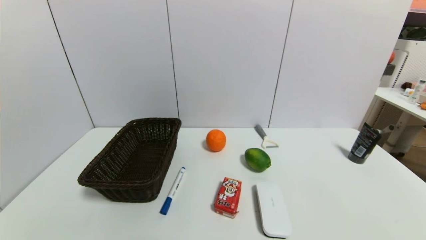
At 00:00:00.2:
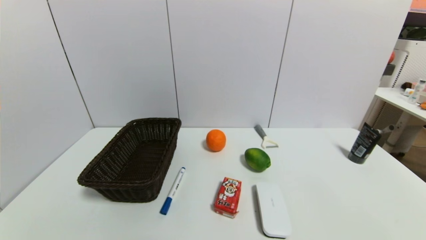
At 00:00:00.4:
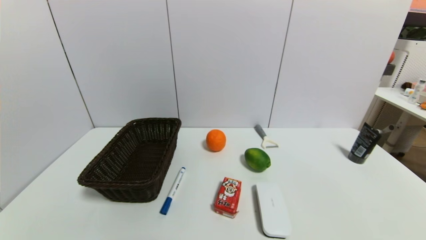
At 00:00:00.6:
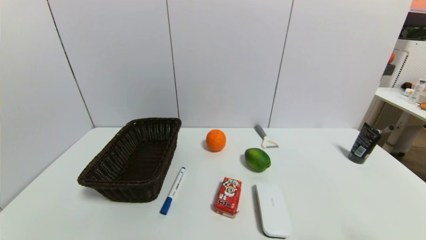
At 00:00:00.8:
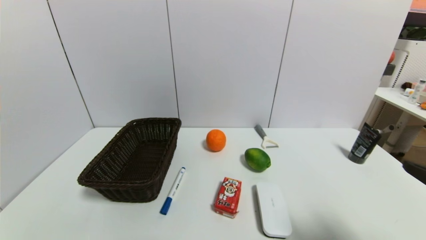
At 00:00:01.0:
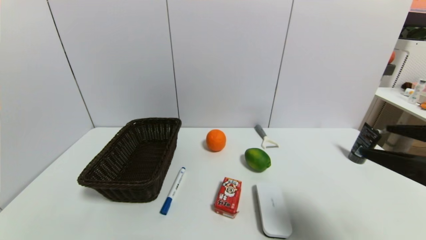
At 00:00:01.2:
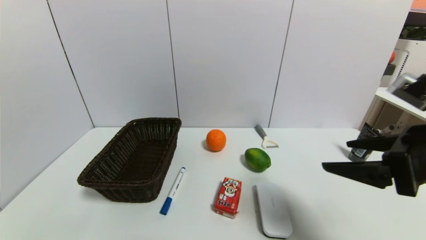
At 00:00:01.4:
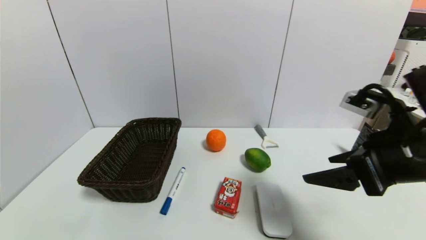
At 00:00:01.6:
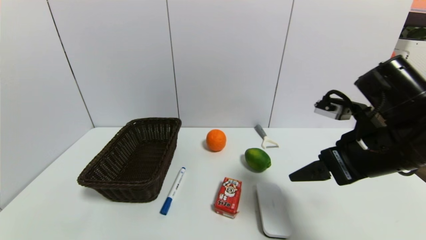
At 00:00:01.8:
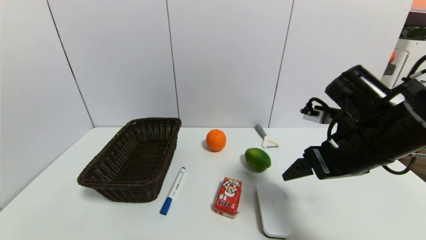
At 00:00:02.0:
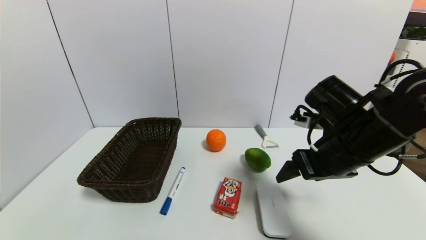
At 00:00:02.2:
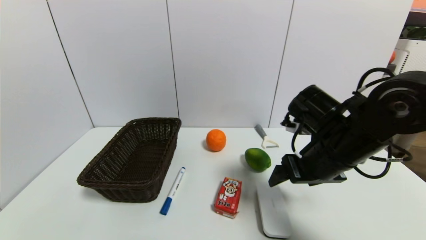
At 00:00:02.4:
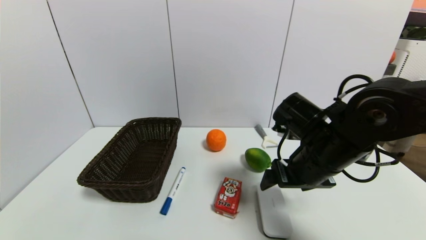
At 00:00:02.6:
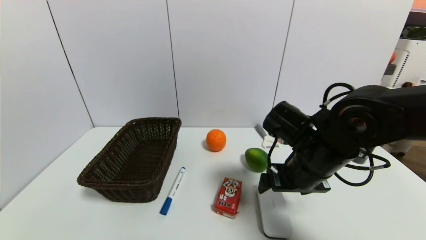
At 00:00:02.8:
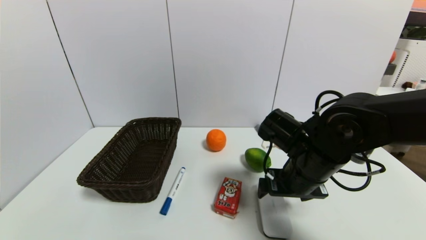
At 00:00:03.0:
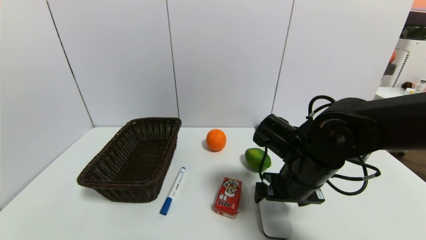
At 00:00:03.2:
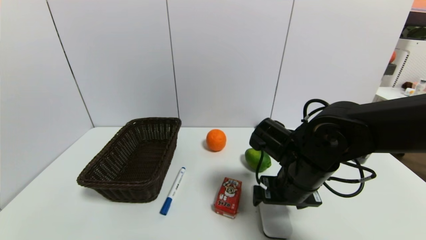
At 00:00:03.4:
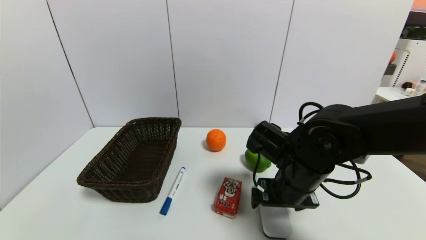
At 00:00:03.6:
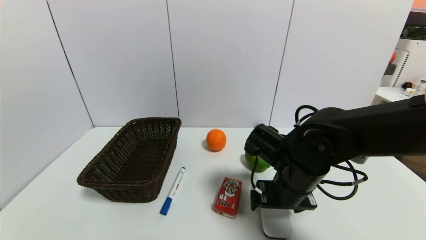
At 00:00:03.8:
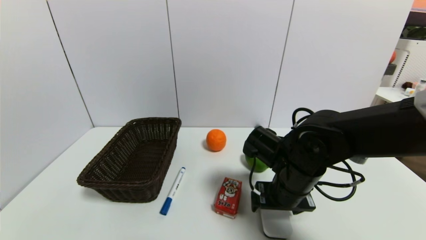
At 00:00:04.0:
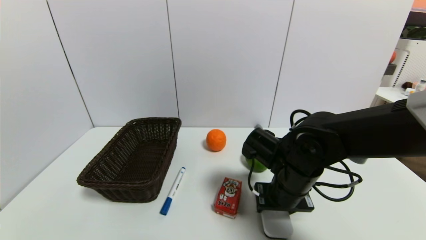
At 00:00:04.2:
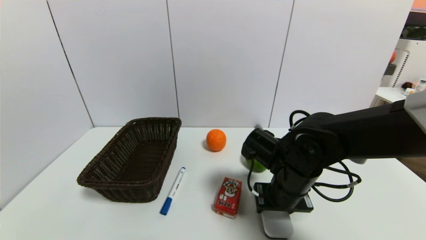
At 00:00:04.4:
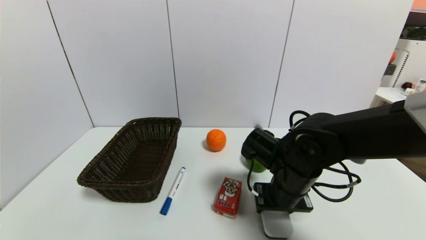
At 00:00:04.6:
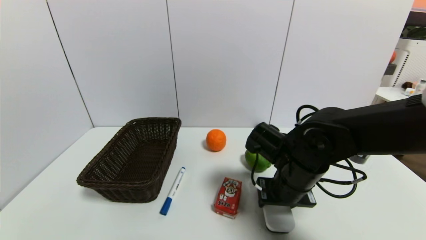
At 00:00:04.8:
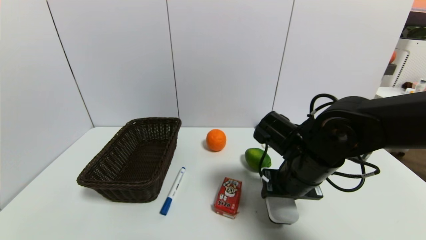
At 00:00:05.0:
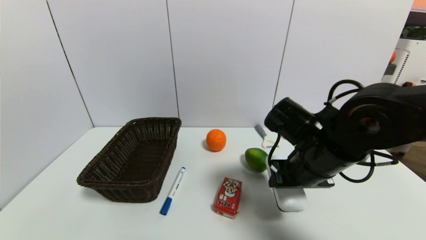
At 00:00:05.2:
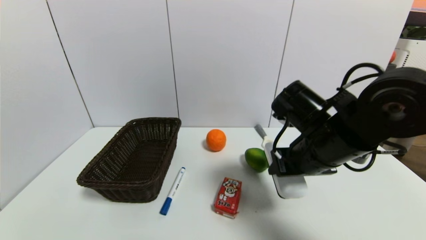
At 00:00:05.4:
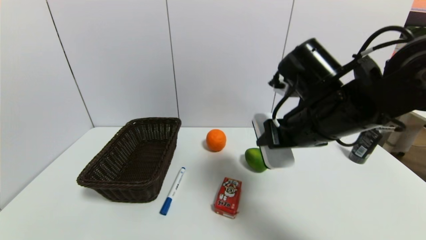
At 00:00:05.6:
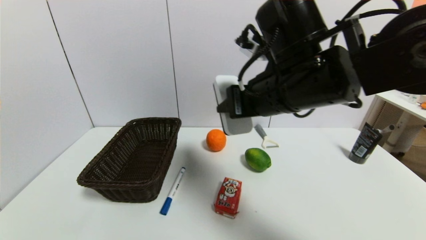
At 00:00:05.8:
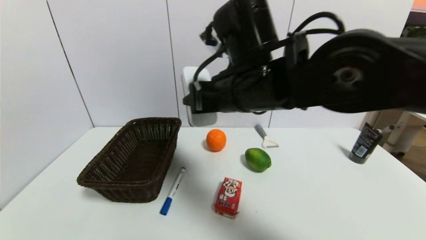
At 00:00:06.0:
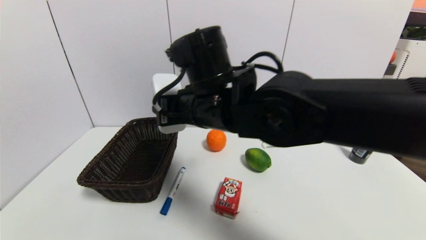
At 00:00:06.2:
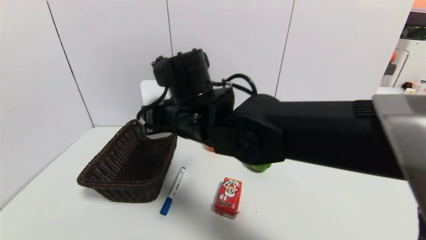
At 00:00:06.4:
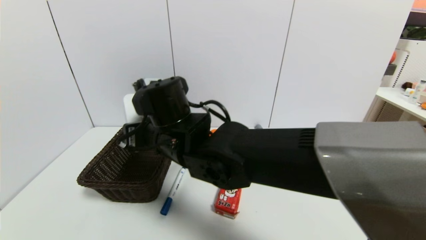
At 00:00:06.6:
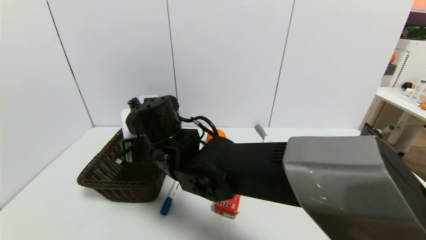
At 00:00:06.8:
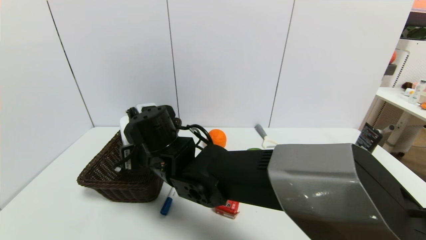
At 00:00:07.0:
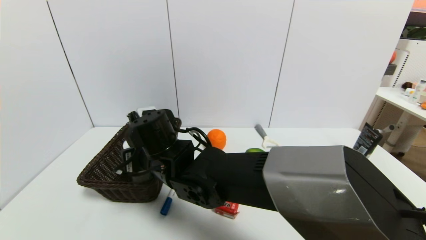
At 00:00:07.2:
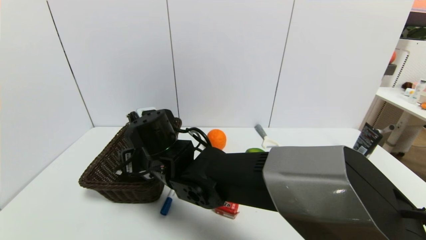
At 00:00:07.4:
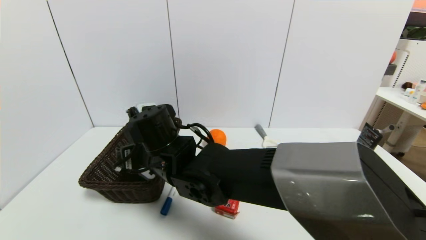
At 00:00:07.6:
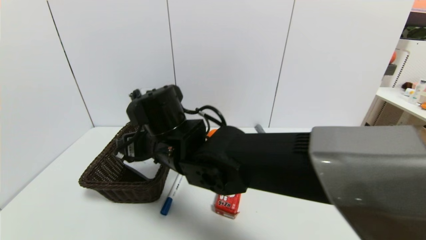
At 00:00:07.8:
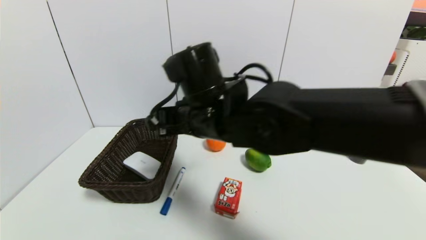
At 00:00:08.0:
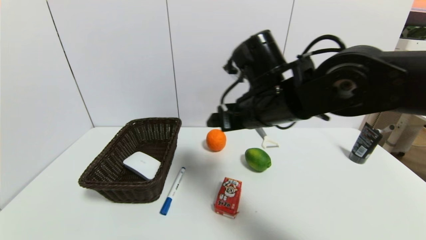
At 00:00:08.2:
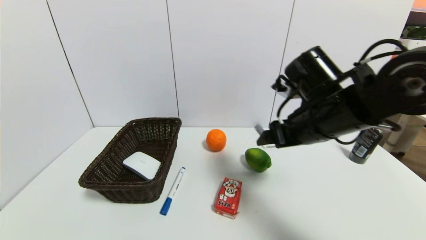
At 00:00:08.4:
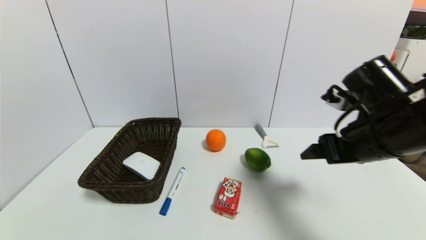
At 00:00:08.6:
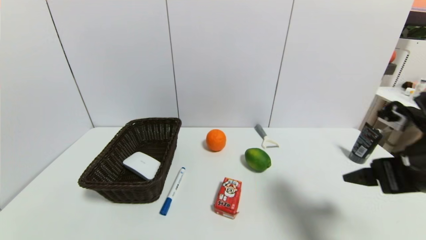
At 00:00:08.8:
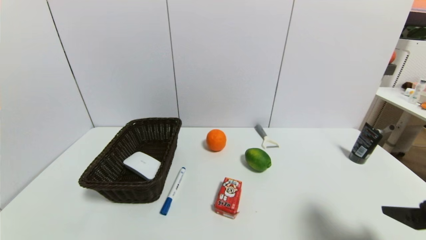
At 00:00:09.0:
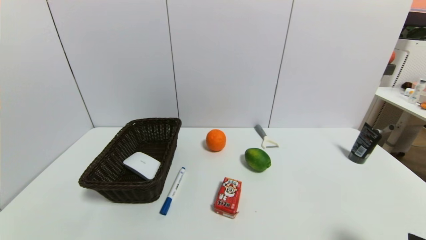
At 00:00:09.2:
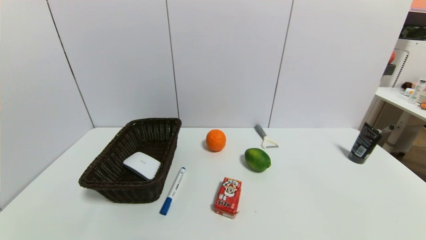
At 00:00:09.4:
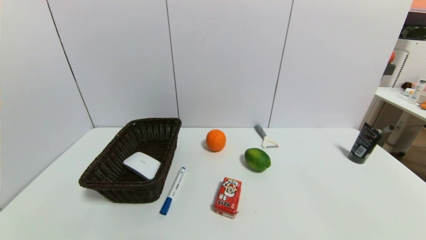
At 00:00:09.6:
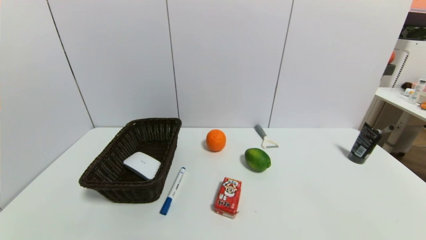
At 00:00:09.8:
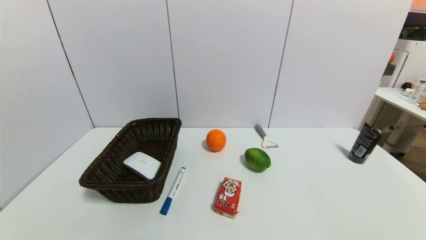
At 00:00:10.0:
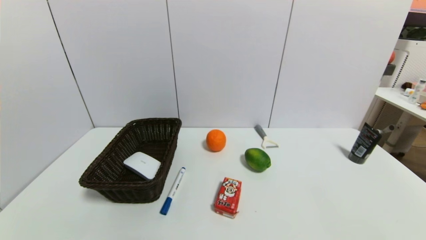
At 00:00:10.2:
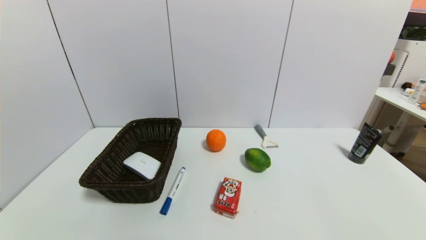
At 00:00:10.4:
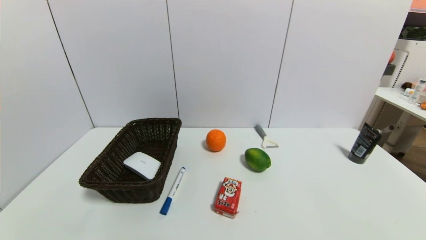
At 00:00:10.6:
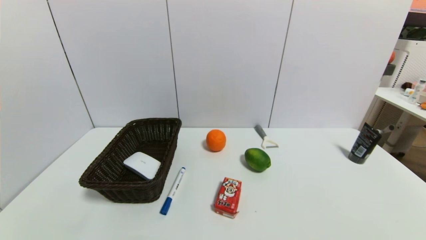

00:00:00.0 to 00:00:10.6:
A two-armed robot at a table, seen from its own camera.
Task of the whole recording: use a gripper to pick the target object and place on the brown basket.
Step, 00:00:00.0 to 00:00:04.2: Grasp the blackboard erasure with the right gripper.
Step, 00:00:04.4 to 00:00:07.8: Place the blackboard erasure into the basket with the right gripper.
00:00:00.0 to 00:00:01.6: The right gripper is displaced forward, upward and to the left by about 30 cm.
00:00:01.6 to 00:00:03.0: The right gripper heads to the left and downward, covering about 10 cm.
00:00:03.0 to 00:00:04.6: The right gripper closes its fingers.
00:00:04.6 to 00:00:06.0: The right gripper travels to the left and upward by about 20 cm.
00:00:06.0 to 00:00:07.6: The right gripper goes some 10 cm to the left and downward, and opens.
00:00:07.6 to 00:00:09.0: The right gripper heads to the right and backward, covering some 50 cm.
